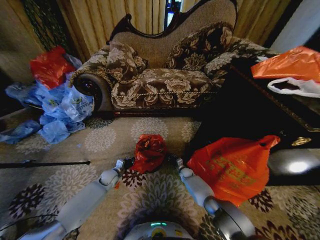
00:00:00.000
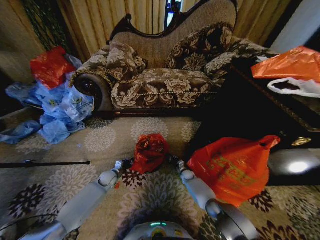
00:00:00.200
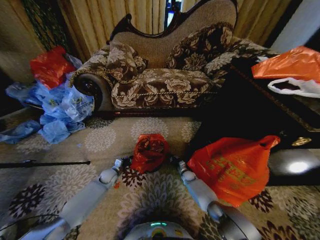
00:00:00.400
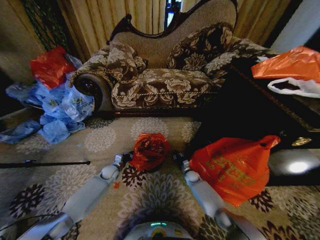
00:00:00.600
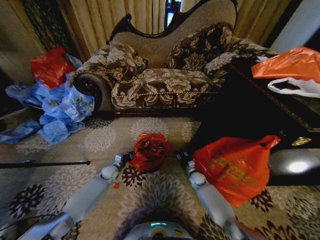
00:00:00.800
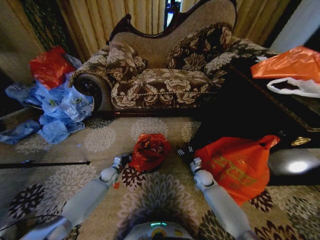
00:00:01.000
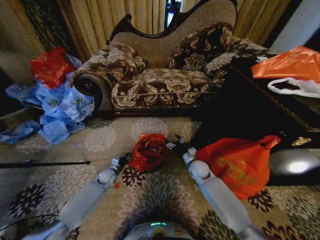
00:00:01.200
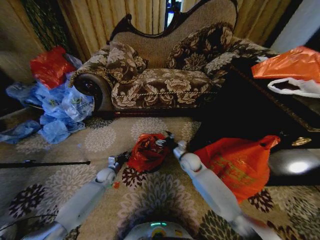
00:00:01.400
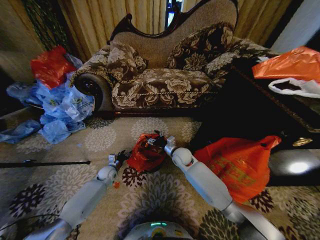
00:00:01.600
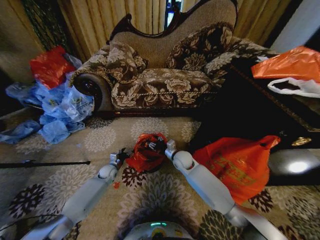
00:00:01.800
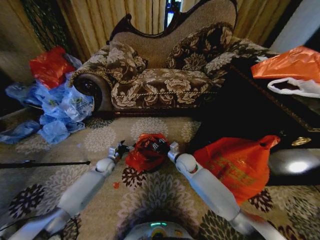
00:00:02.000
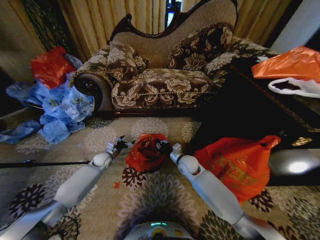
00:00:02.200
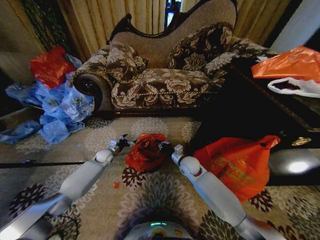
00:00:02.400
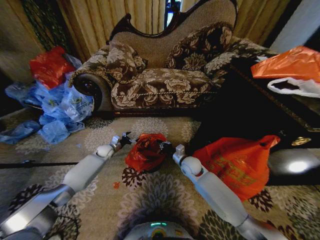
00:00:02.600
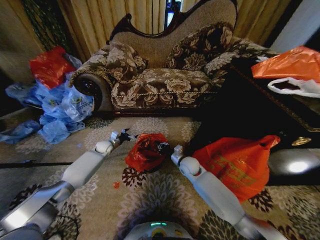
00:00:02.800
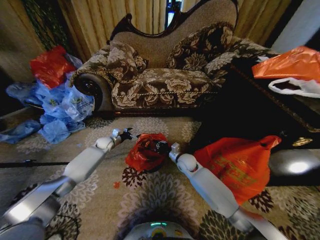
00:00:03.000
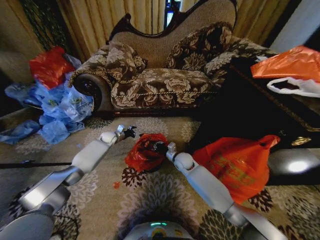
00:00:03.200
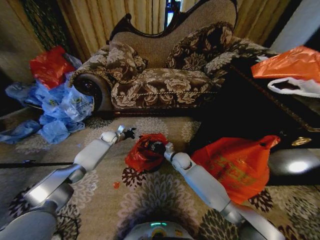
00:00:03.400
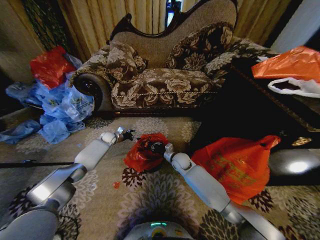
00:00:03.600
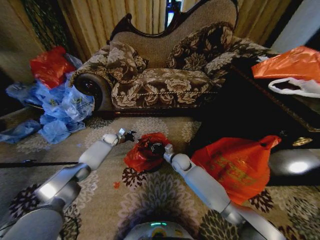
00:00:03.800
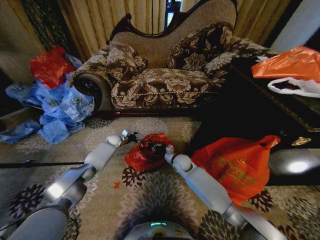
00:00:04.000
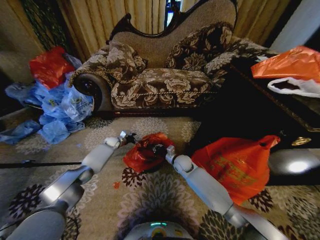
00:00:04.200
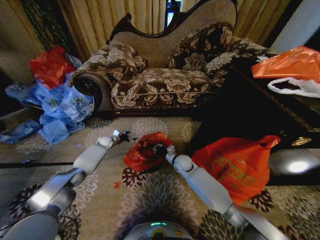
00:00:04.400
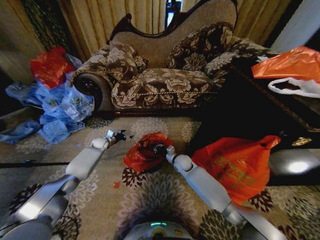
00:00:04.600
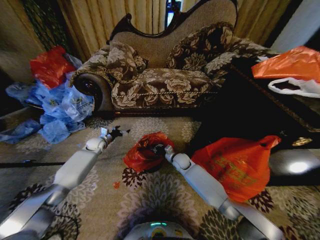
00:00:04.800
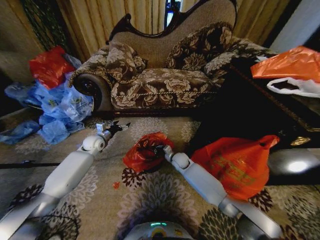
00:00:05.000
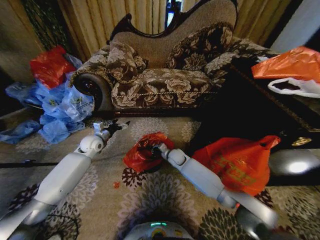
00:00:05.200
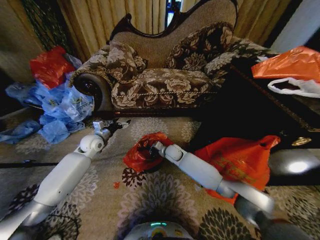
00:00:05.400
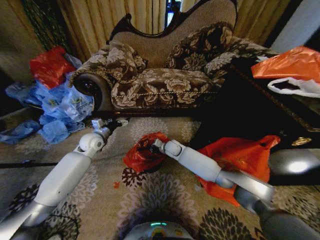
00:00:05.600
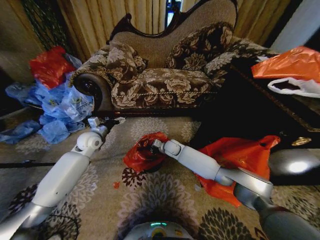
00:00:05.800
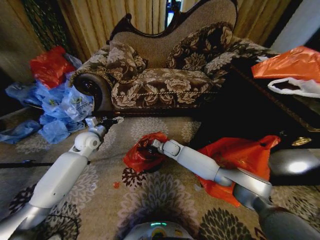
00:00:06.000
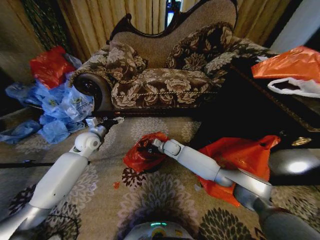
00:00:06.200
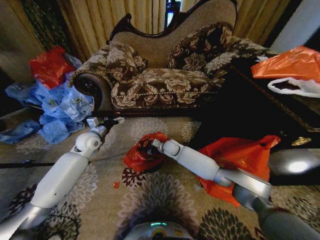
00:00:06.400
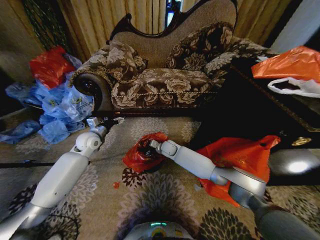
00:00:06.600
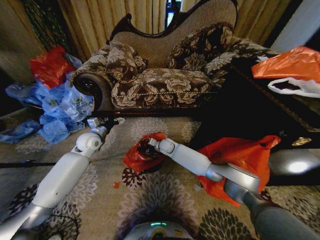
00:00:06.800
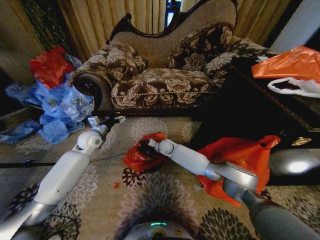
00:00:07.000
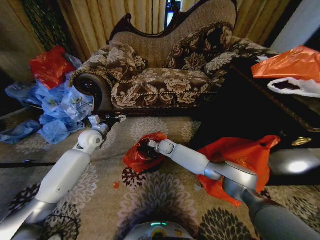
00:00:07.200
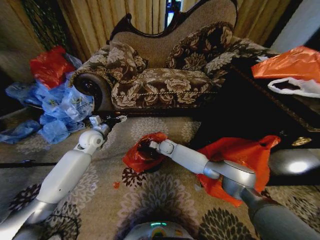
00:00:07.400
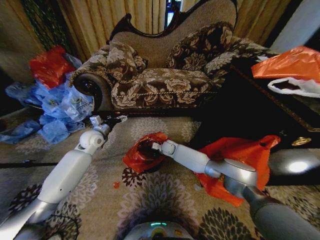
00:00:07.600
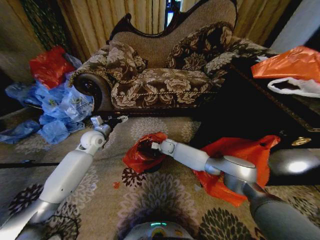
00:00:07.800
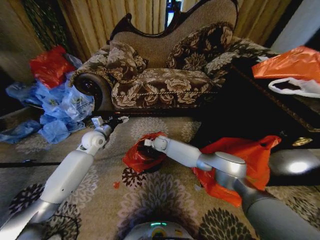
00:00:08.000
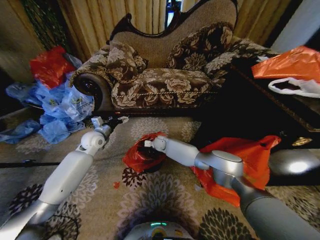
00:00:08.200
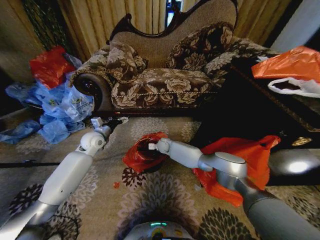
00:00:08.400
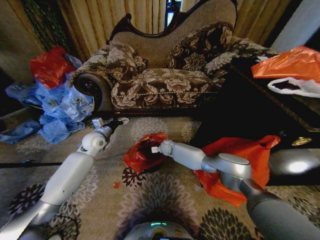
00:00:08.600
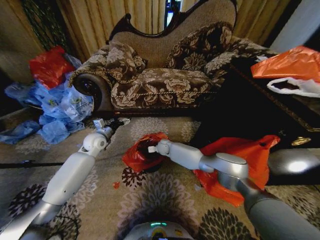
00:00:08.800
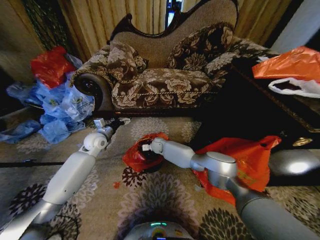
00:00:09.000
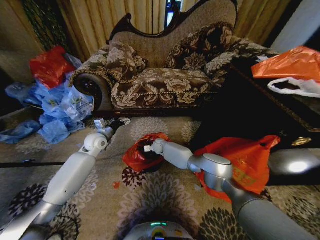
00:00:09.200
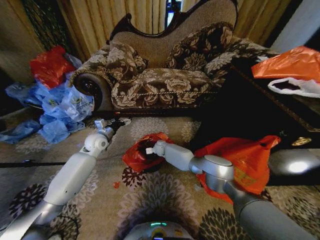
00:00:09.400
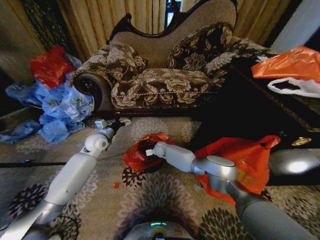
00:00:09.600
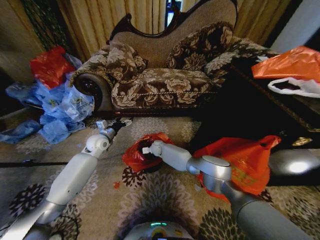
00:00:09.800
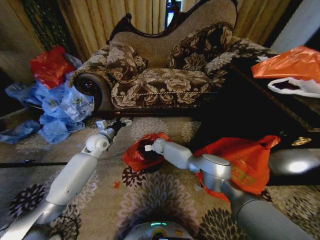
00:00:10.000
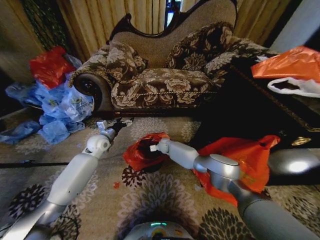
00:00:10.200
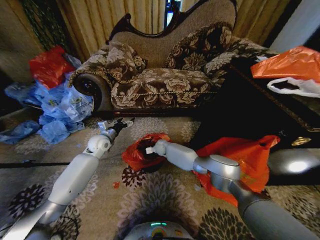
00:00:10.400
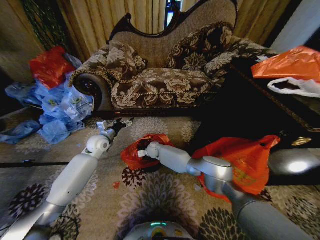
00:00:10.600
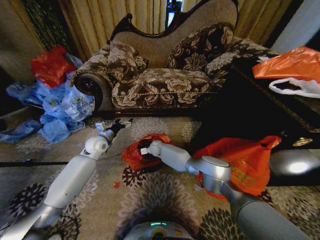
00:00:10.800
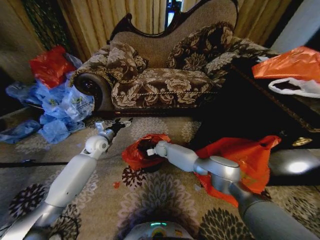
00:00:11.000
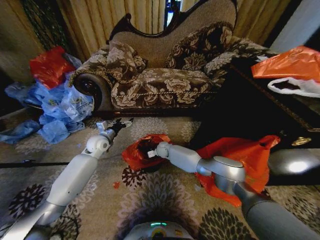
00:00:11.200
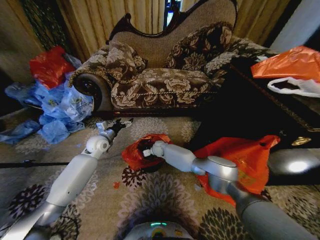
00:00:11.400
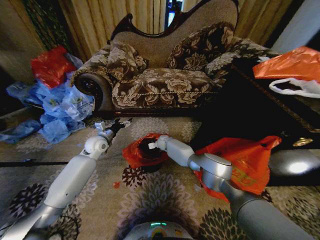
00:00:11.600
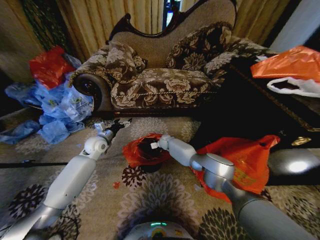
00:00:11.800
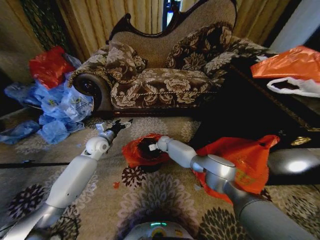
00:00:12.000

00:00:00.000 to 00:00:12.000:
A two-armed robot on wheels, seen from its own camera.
Task of the whole recording: Place a garbage bag over the trash bin.
00:00:00.000 to 00:00:01.600: The right gripper is displaced upward by roughly 25 cm, and opens up; the left gripper opens its fingers.
00:00:01.600 to 00:00:03.000: The right gripper closes up, while the left gripper goes roughly 20 cm forward and upward, and opens.
00:00:03.000 to 00:00:04.400: The left gripper shifts by some 5 cm.
00:00:04.400 to 00:00:06.000: The left gripper travels upward and backward by some 20 cm. The right gripper goes roughly 10 cm forward and to the left.
00:00:06.000 to 00:00:07.600: The right gripper moves some 5 cm, and opens, then closes again.
00:00:07.600 to 00:00:09.000: The right gripper goes left and right, about 5 cm each way, reversing 2 times.
00:00:09.000 to 00:00:10.400: The grippers stay close to where they were, moving slightly.
00:00:10.400 to 00:00:12.000: The right gripper moves approximately 5 cm.

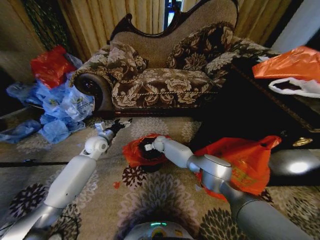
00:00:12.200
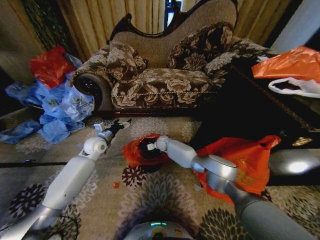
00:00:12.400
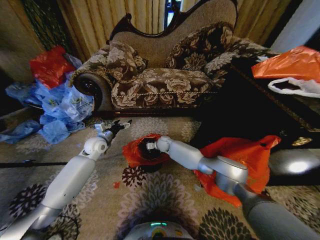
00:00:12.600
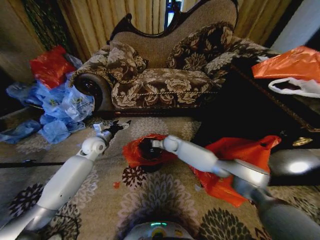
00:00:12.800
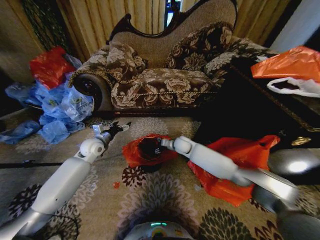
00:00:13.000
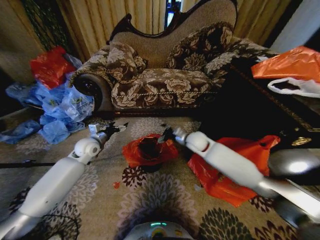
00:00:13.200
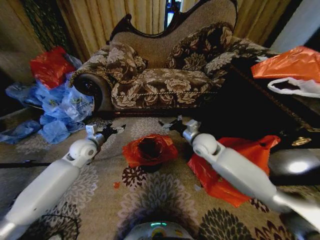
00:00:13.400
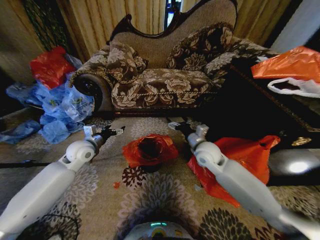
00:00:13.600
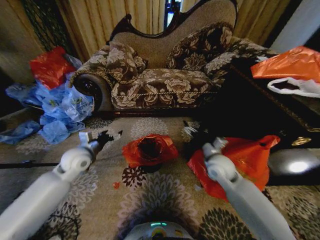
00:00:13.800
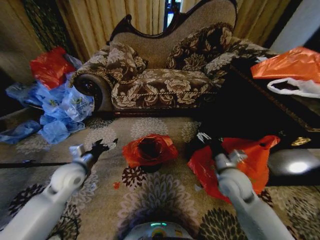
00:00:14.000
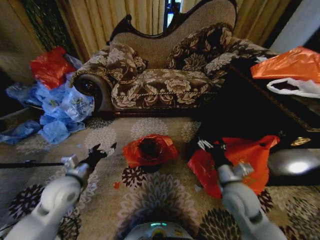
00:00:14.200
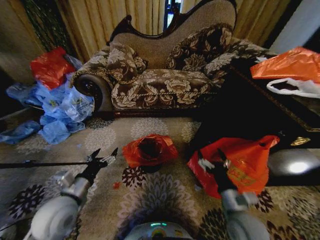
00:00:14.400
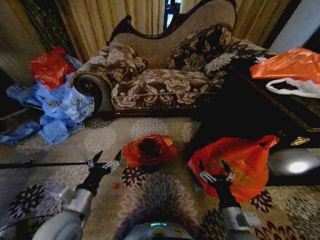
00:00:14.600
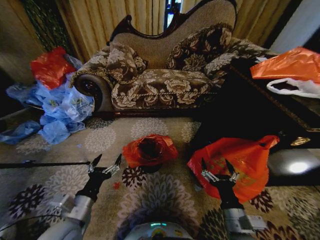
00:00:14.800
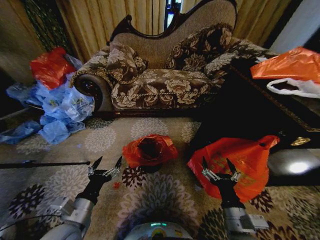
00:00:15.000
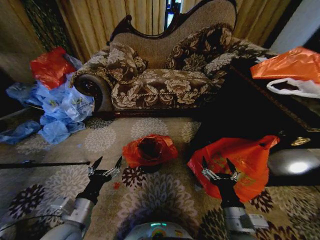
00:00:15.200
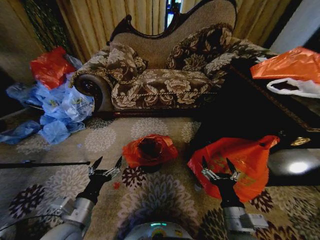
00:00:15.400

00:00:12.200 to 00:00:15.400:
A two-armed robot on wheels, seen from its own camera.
Task of the whole recording: Place a garbage bag over the trash bin.
00:00:12.200 to 00:00:13.800: The left gripper travels backward by approximately 10 cm. Meanwhile the right gripper is displaced backward, to the right and upward by about 35 cm, and opens its fingers.
00:00:13.800 to 00:00:15.400: Both grippers move backward, roughly 25 cm.
